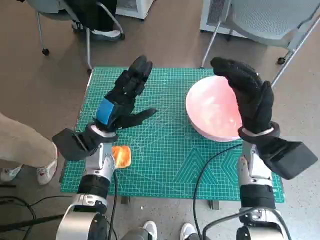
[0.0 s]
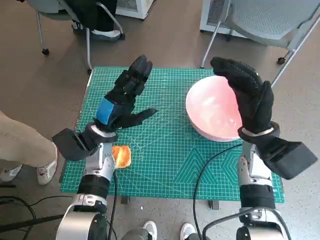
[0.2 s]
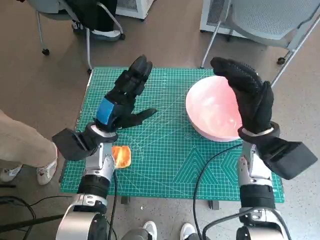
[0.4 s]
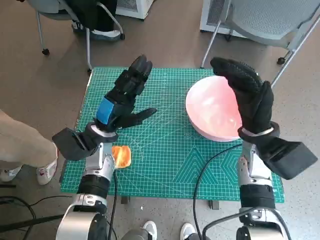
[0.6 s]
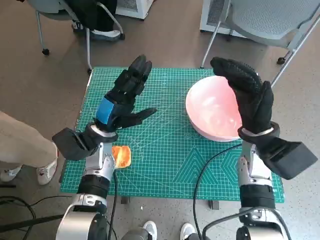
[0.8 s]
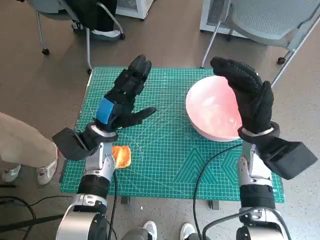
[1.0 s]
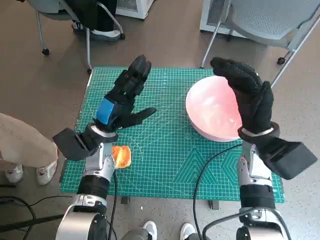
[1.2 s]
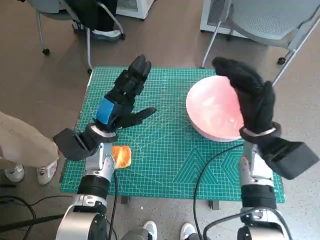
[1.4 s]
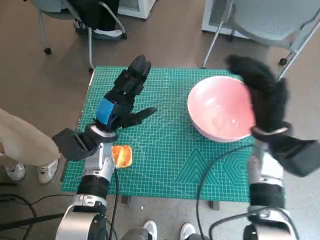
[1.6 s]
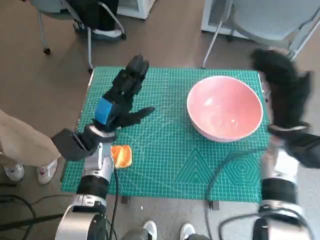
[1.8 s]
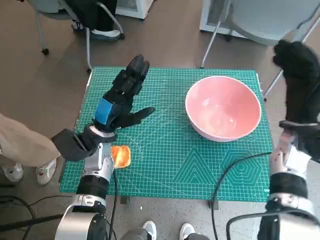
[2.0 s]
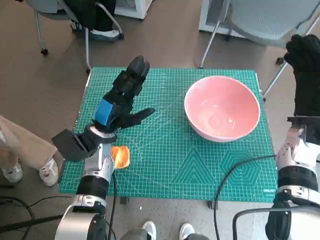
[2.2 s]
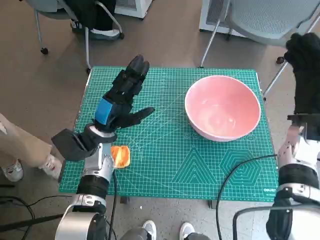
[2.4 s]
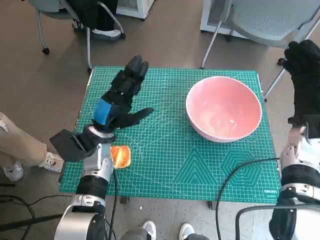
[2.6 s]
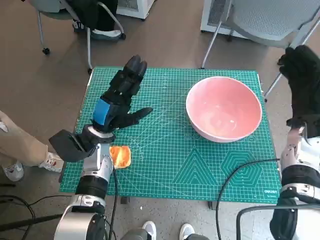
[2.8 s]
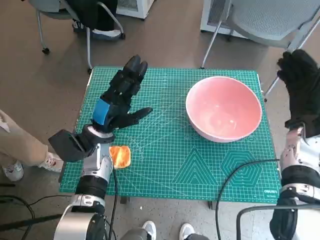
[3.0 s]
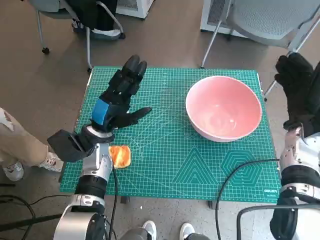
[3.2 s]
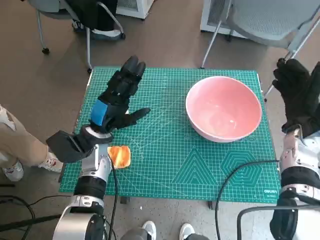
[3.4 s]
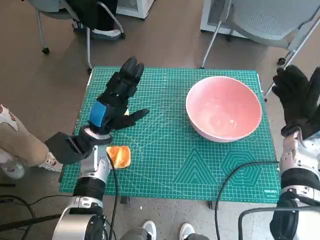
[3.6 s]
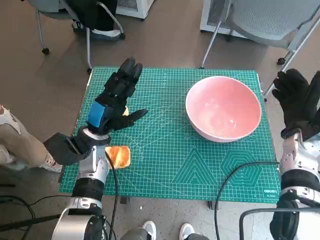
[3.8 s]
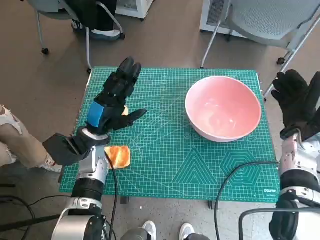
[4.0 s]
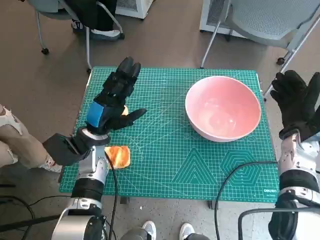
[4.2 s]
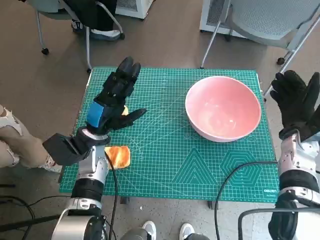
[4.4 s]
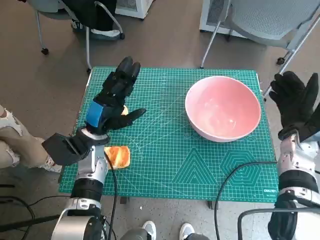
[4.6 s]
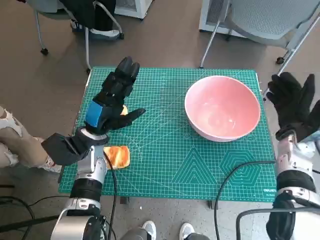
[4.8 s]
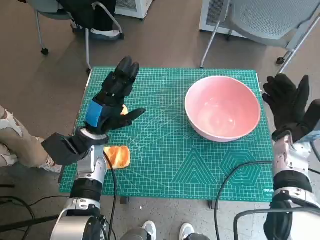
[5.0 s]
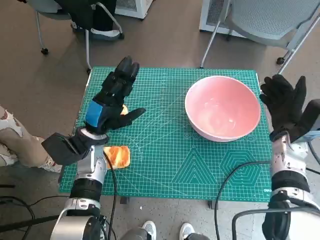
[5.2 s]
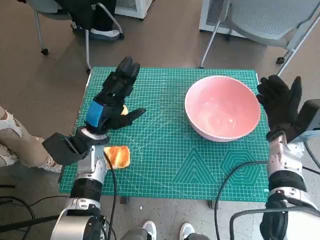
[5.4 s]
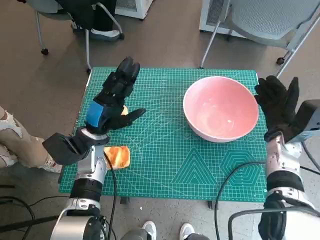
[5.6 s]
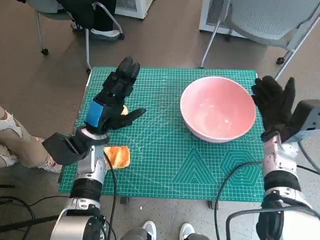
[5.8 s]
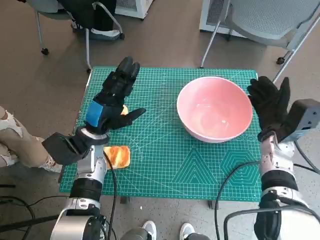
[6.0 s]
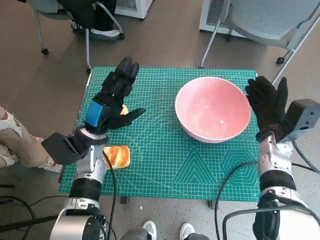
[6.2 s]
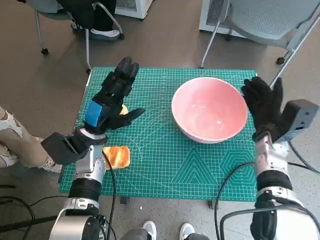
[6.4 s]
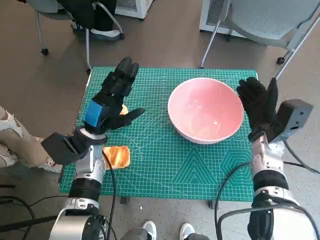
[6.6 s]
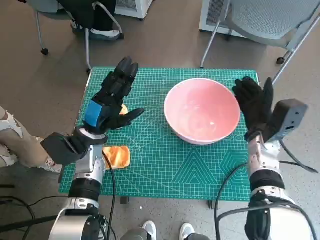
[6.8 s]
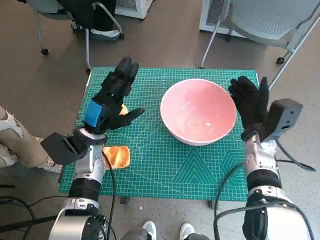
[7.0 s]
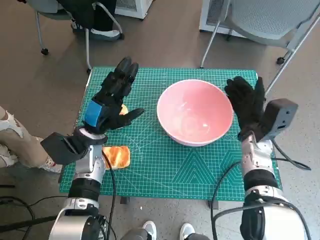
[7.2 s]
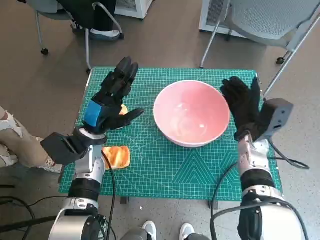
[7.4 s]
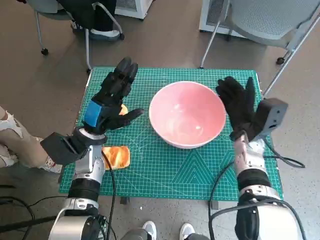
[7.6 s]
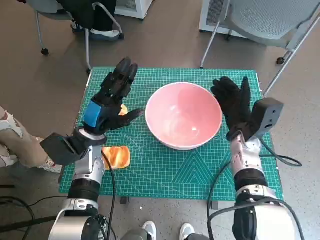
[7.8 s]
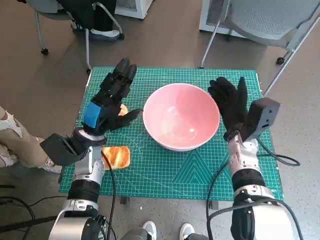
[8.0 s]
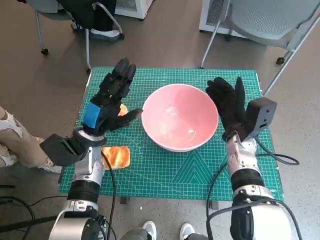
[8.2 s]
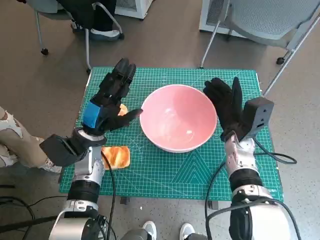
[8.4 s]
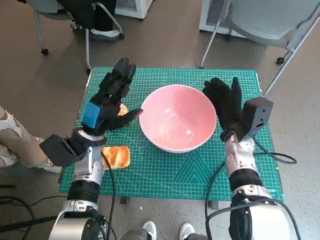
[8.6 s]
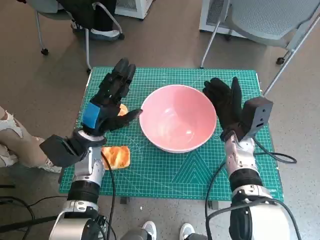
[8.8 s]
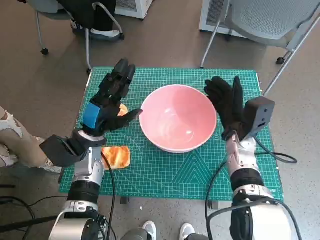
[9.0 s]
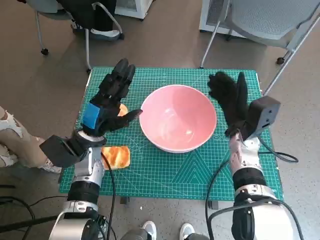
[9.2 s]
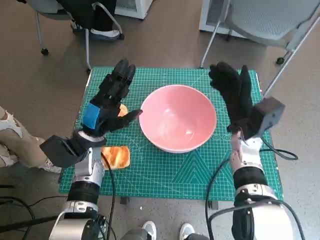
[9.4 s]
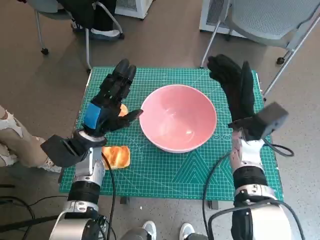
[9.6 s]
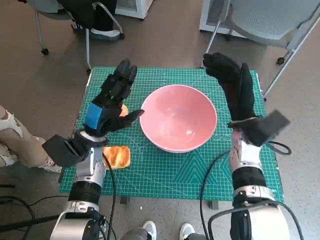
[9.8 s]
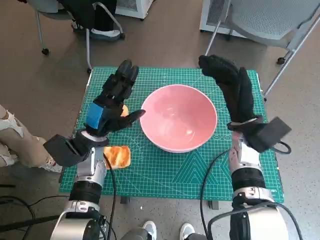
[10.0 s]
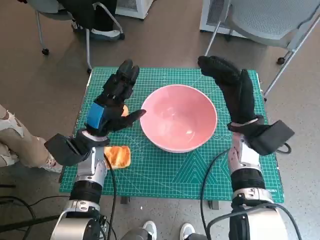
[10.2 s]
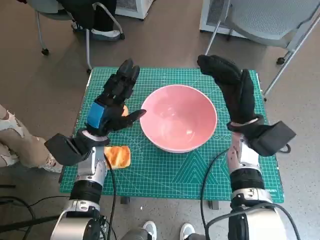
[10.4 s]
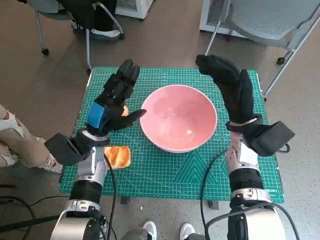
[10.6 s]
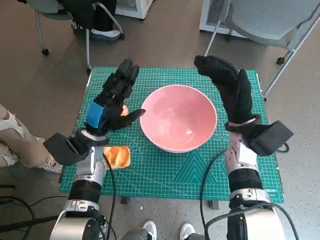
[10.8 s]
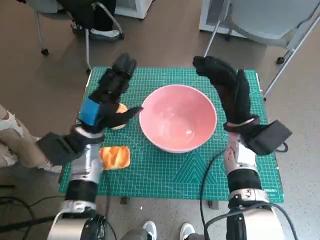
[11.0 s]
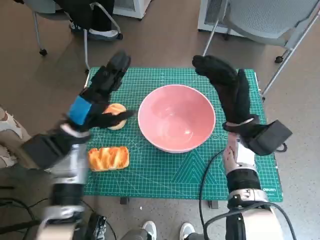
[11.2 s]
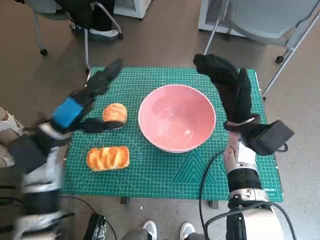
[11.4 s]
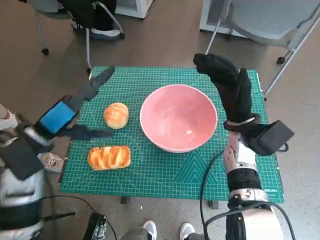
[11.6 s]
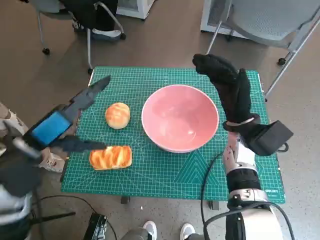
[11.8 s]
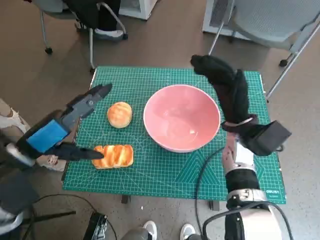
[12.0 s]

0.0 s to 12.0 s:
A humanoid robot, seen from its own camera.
Step, 0.0 to 9.2 s: Move the pink bowl to the center of table with right hand.
1.6 to 3.0 s: The right hand shifts about 5 cm to the right.
3.0 to 6.0 s: The hands stay close to where they were, moving slightly.
6.0 to 7.6 s: The right hand shifts some 5 cm to the left.
7.6 to 9.0 s: The hands stay close to where they were, moving slightly.
10.4 to 12.0 s: The left hand shifts approximately 15 cm upward, backward and to the left.

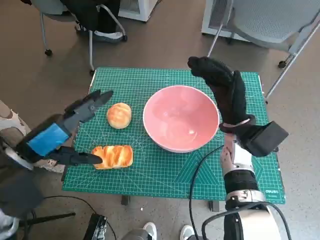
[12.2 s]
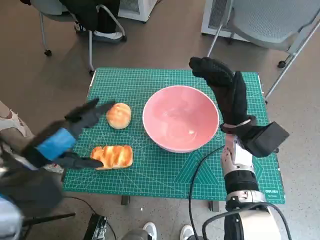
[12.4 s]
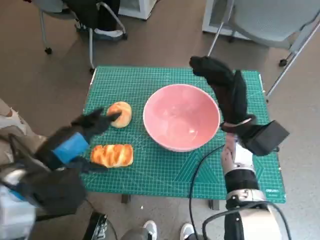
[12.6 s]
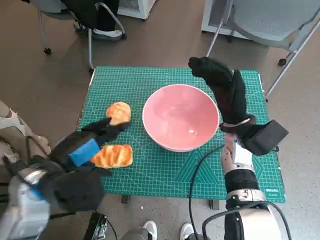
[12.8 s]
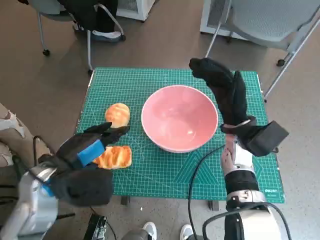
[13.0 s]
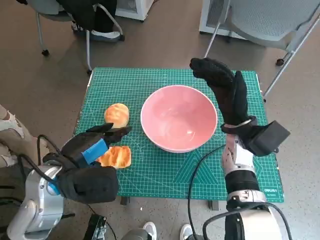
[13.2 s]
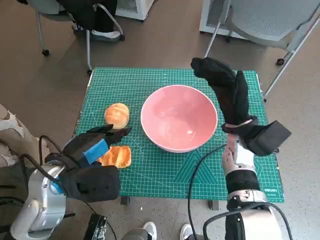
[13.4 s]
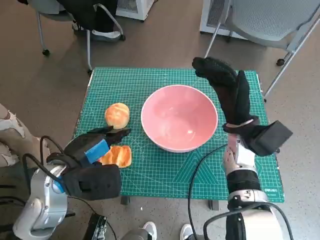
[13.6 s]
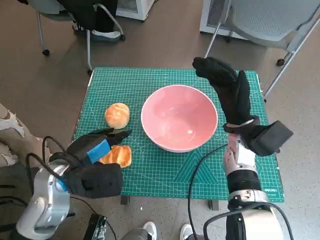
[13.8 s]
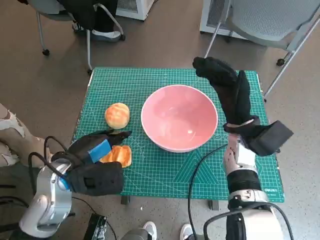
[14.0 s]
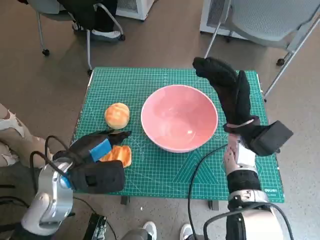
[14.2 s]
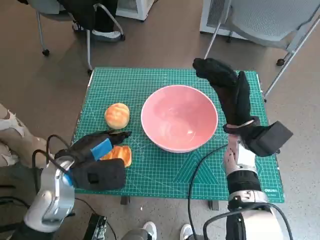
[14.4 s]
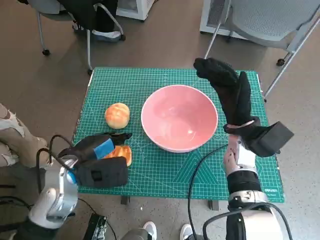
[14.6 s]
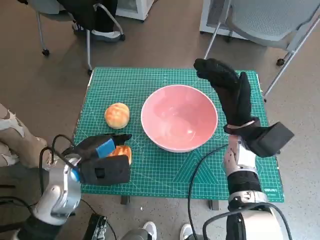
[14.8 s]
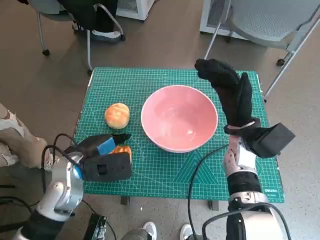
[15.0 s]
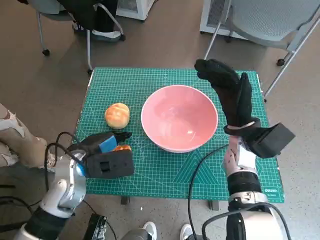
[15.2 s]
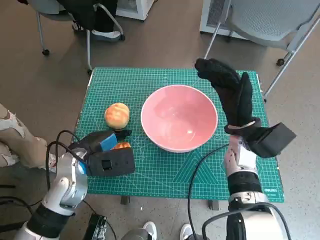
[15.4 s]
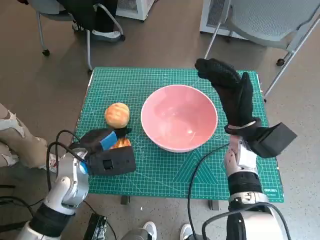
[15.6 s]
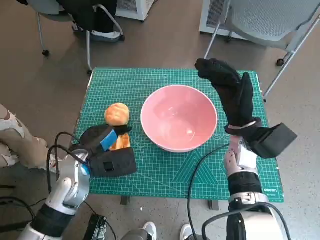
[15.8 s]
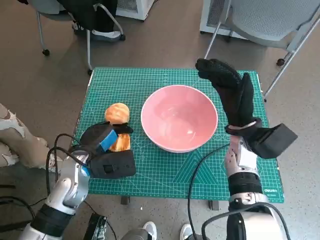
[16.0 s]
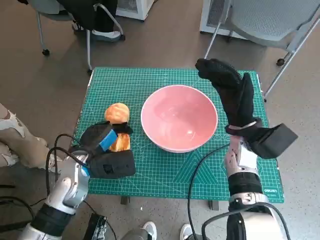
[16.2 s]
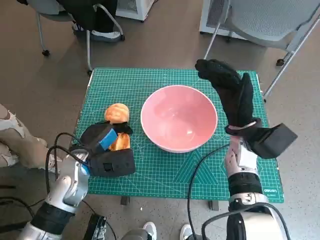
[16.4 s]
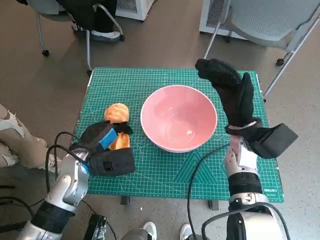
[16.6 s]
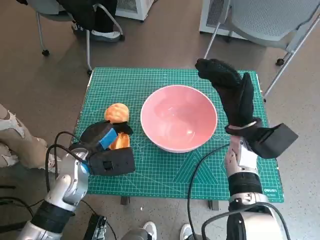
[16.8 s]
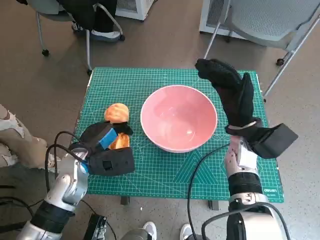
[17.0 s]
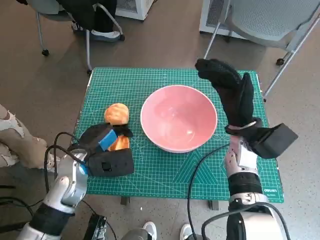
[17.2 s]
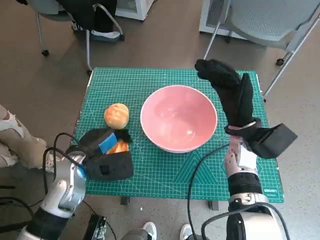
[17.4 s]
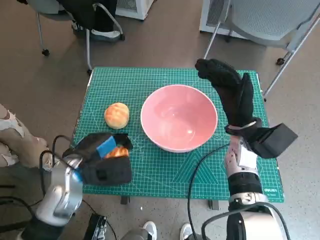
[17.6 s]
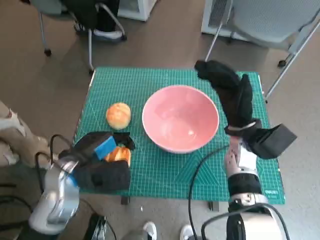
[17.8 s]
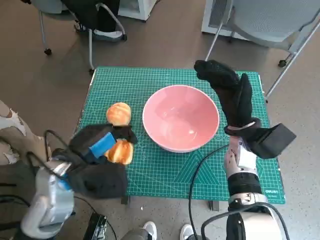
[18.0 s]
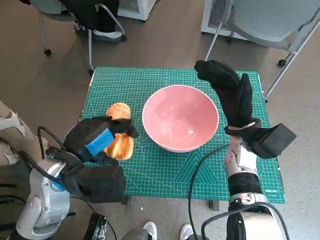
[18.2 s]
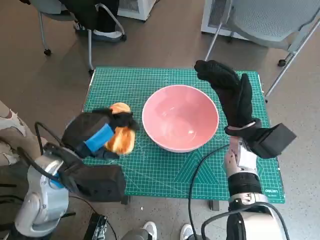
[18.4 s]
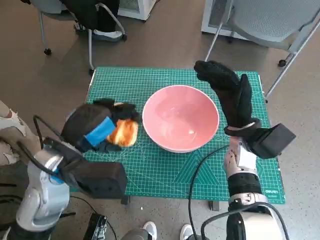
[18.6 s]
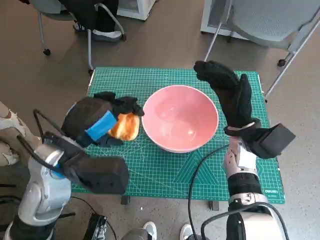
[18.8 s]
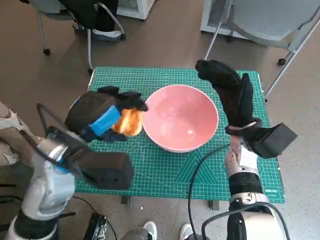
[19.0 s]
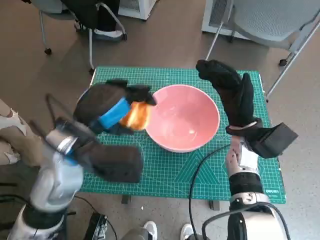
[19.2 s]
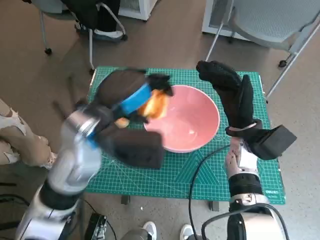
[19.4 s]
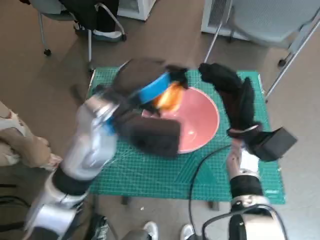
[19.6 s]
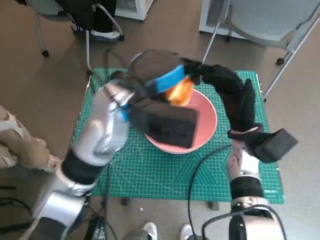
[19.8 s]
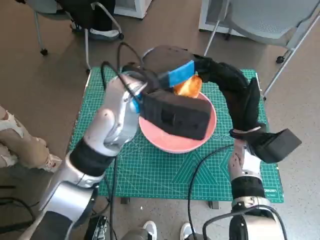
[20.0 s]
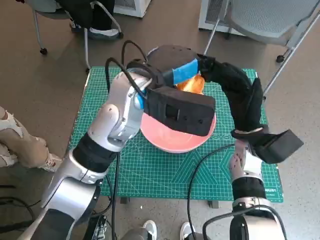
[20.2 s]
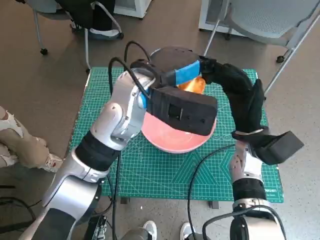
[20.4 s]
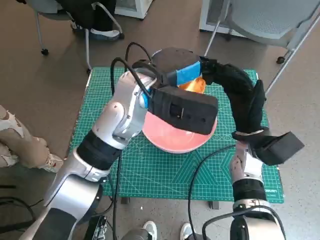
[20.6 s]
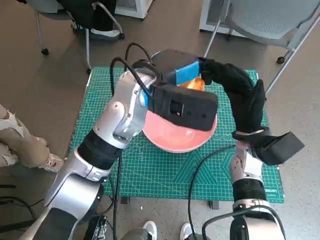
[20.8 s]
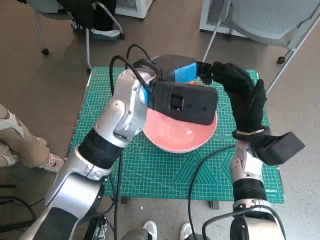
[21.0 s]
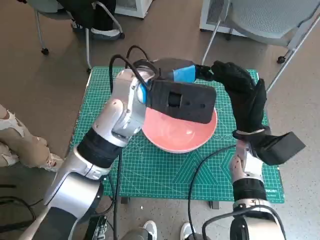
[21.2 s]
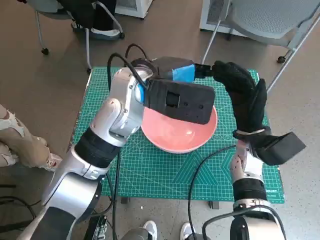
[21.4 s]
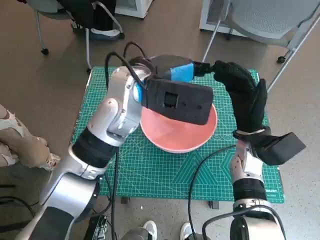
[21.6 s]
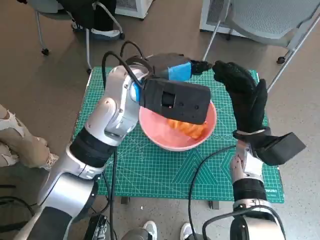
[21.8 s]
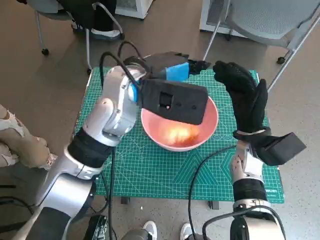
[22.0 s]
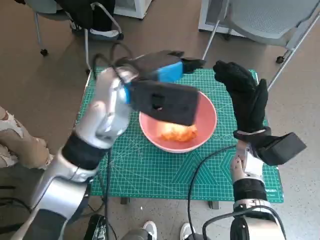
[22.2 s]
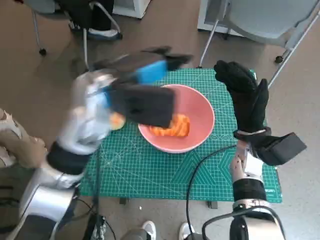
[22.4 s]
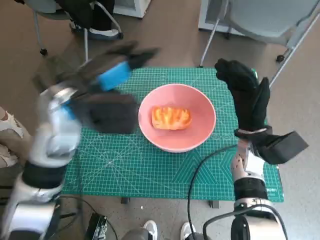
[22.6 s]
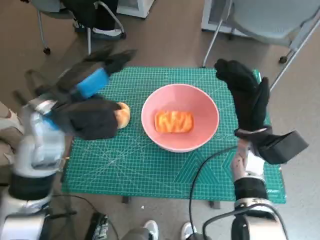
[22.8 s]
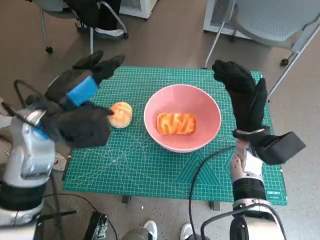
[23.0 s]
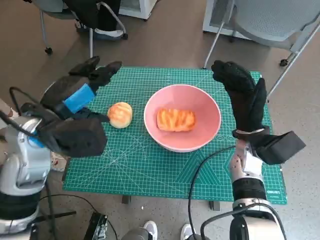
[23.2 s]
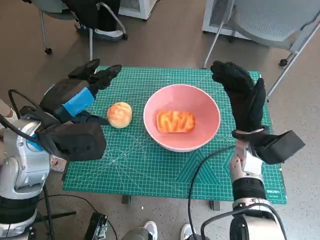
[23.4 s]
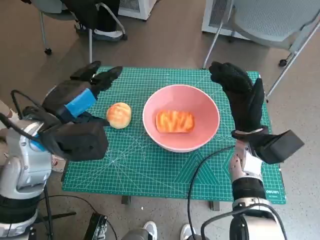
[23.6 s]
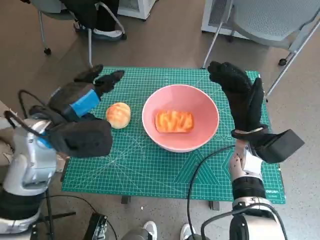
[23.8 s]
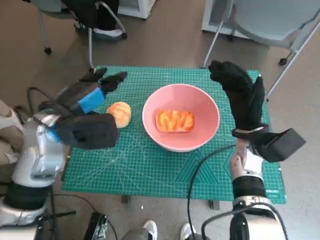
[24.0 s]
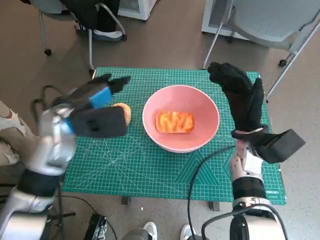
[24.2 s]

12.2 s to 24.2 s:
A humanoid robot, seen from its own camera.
Step, 12.2 to 15.8 s: Grasp the long bread with left hand.
Step, 16.0 to 21.8 s: Place the long bread in pink bowl with left hand.
12.2 to 13.8 s: The left hand goes about 10 cm downward and to the right.
13.8 to 15.2 s: There are only small adjustments of the hands.
15.2 to 16.6 s: There are only small adjustments of the hands.
16.6 to 18.2 s: The left hand moves upward, some 10 cm.
18.2 to 19.8 s: The left hand shifts about 15 cm to the right, forward and upward.
21.2 to 22.6 s: The left hand moves to the left, some 10 cm.
22.6 to 24.2 s: The left hand heads downward, covering roughly 5 cm.
